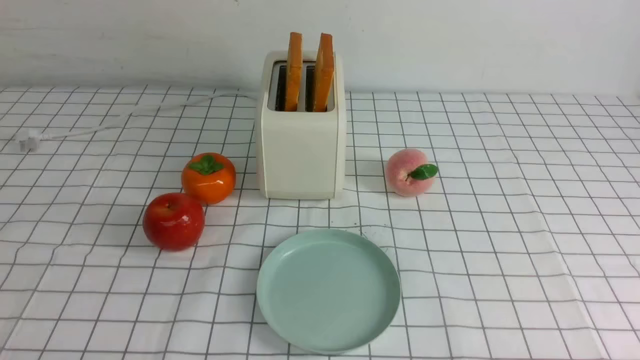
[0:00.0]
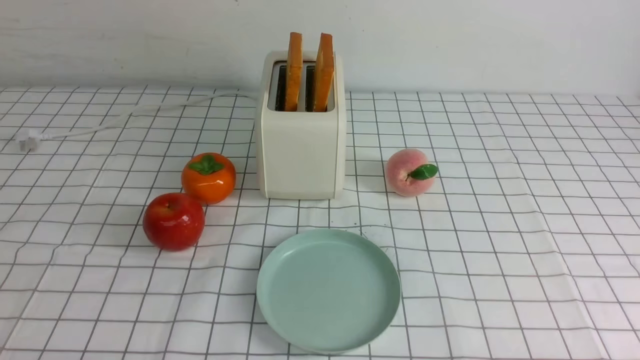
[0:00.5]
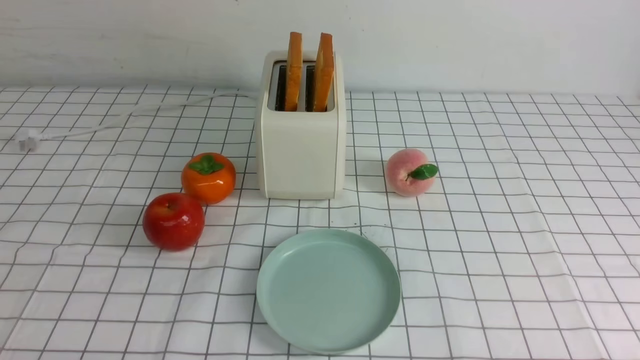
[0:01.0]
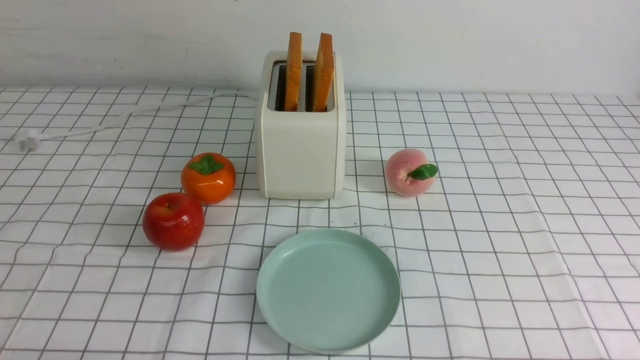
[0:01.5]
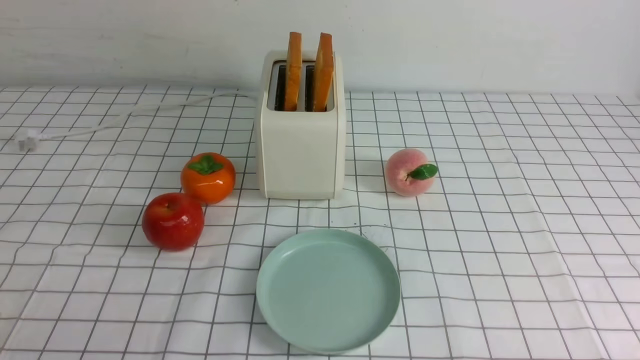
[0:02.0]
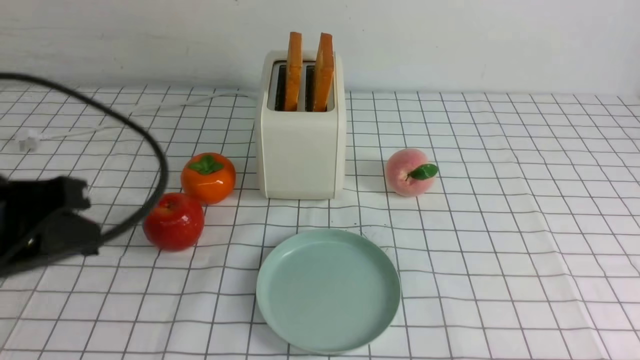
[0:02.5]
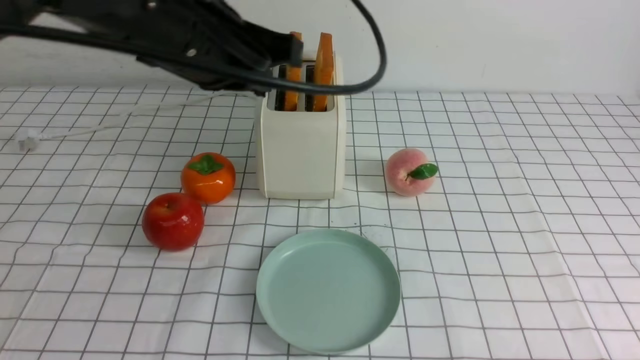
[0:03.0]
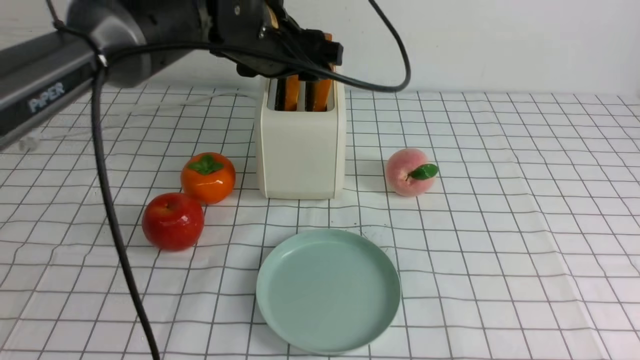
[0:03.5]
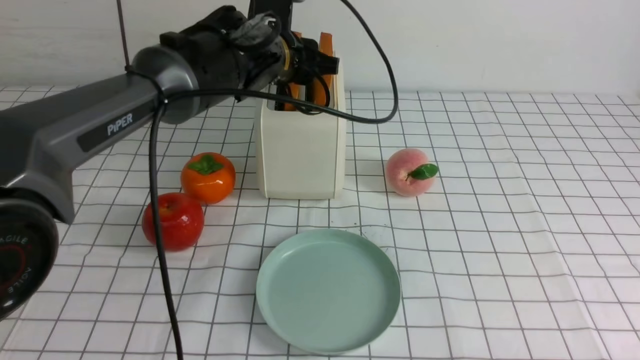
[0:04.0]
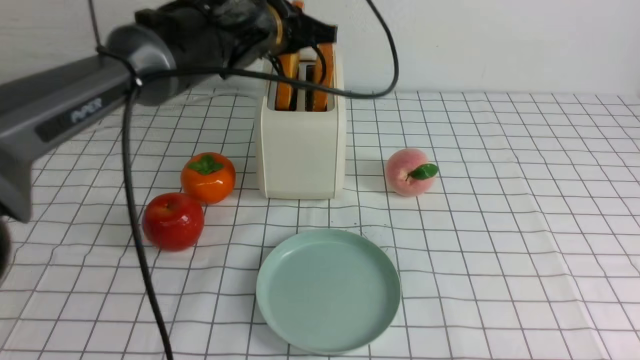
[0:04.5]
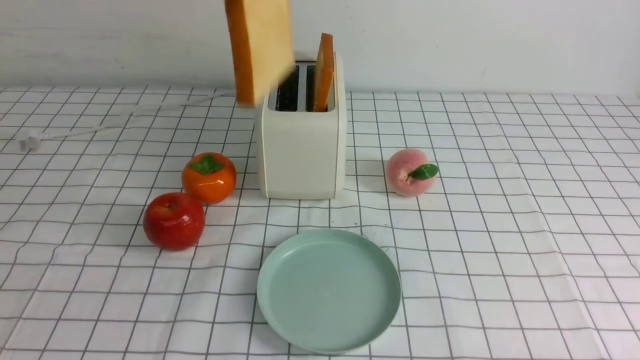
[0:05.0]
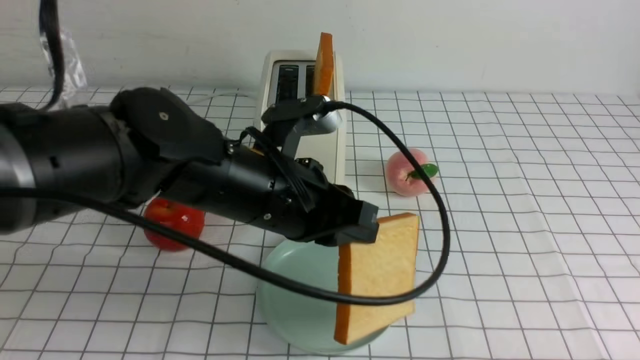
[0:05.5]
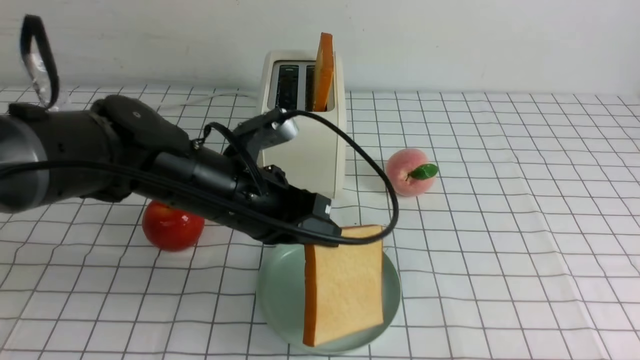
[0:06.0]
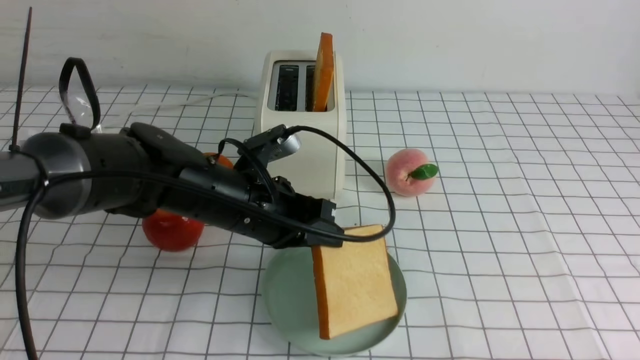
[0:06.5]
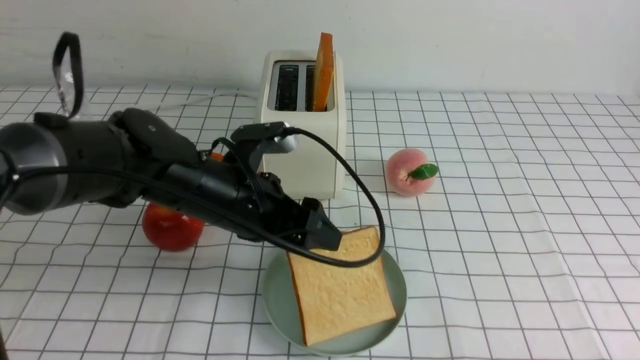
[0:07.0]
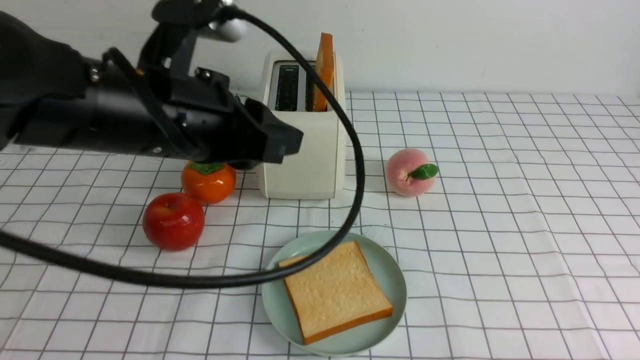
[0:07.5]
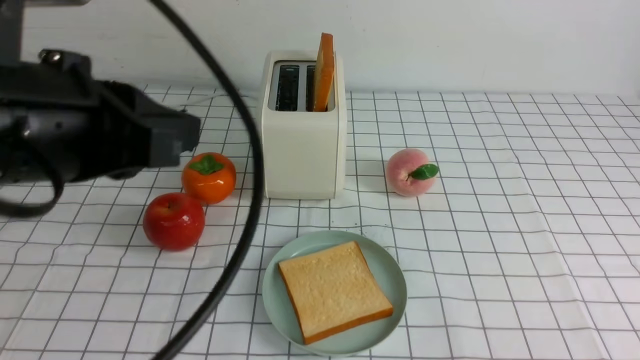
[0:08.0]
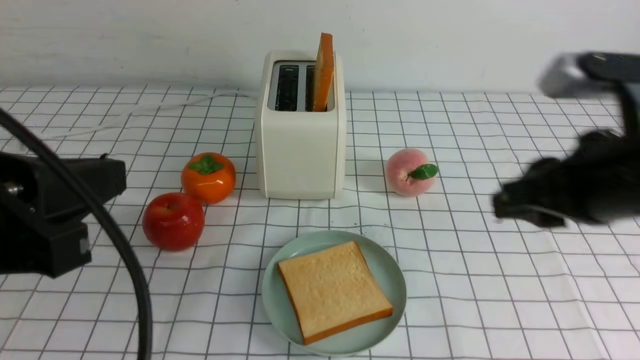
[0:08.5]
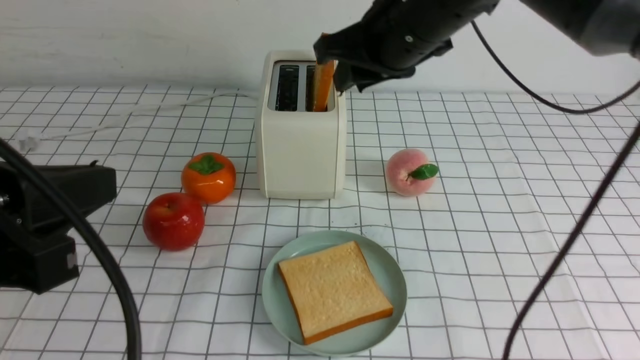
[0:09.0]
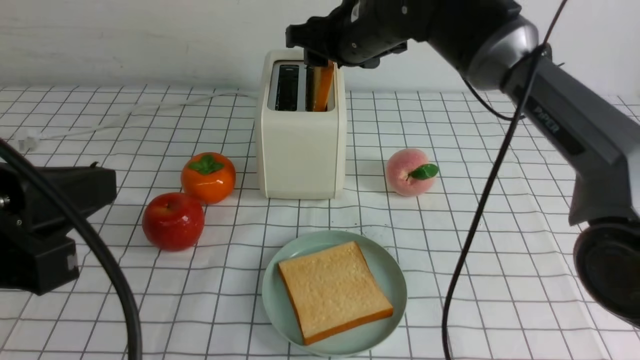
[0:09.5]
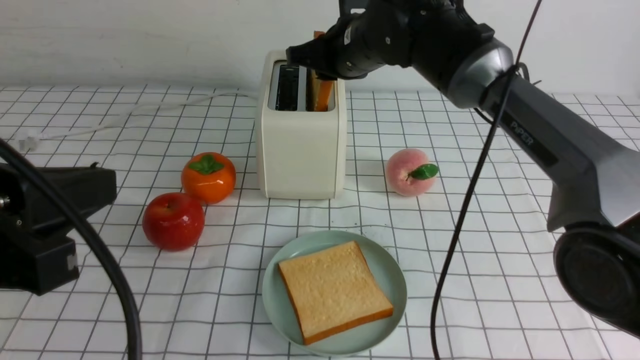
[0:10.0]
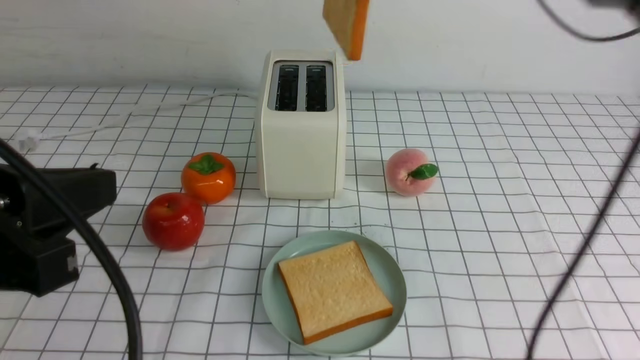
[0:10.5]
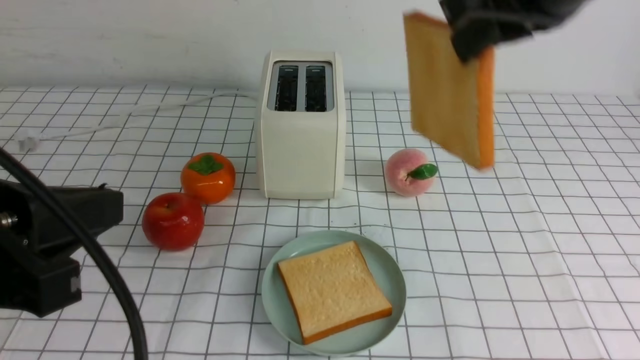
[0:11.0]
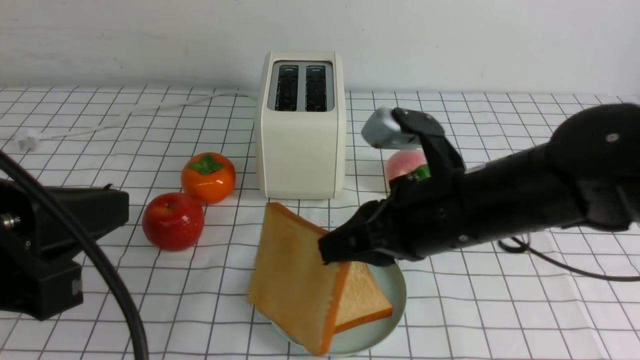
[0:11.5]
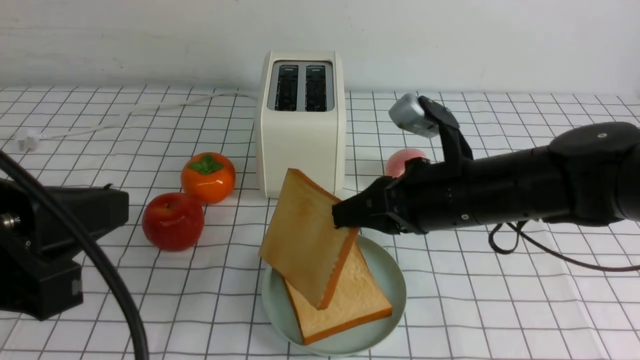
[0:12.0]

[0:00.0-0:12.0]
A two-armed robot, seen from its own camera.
Task of the whole recording: take toasted bread from bread machine on white checkered table place on plate.
Step, 0:00.0 to 0:04.5: use the left arm to take out a slice of bread.
Step, 0:05.0 to 0:07.0: use the left arm to put a slice of bread into the empty plate.
Step, 0:07.5 to 0:10.0: use the right arm to take out a slice of bread.
0:02.0 to 0:04.0: The left gripper travels forward and to the right by roughly 40 cm, and opens up.
0:04.0 to 0:06.0: The left gripper travels backward by roughly 15 cm, travels upward and back again, some 15 cm each way, and closes its fingers.
0:06.0 to 0:08.0: The right gripper moves upward, roughly 10 cm; the left gripper is displaced upward, backward and to the left by roughly 20 cm, and opens, then closes once more.
0:08.0 to 0:10.0: The right gripper heads forward and to the left, covering some 50 cm; the left gripper is displaced backward by roughly 5 cm.
0:10.0 to 0:12.0: The right gripper is displaced backward, downward and to the right by about 20 cm.

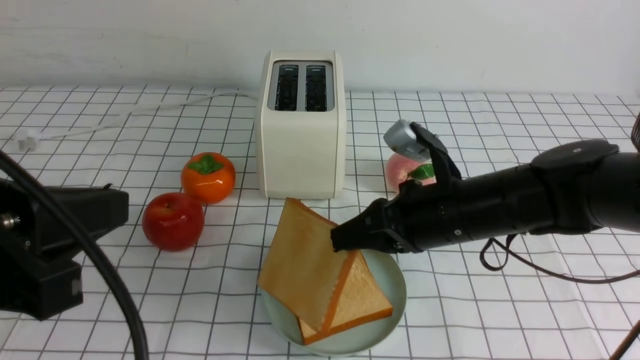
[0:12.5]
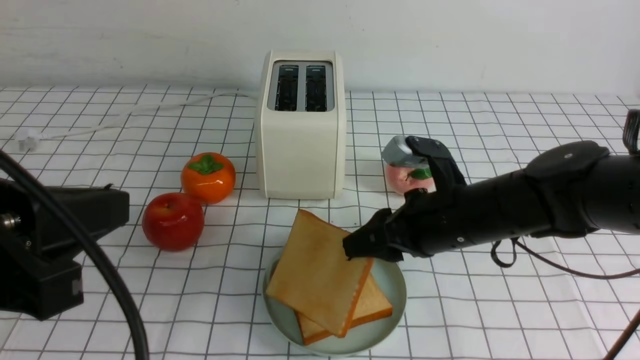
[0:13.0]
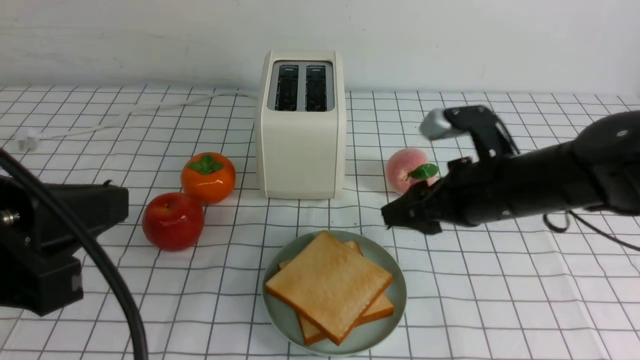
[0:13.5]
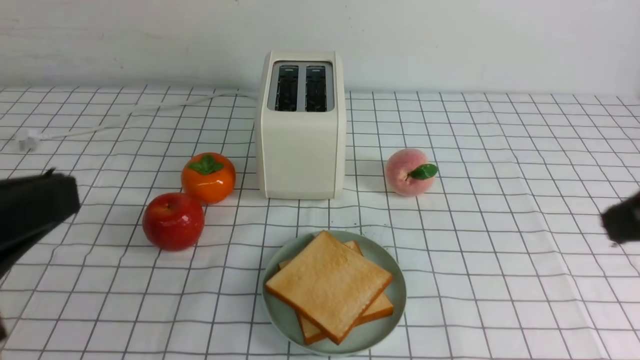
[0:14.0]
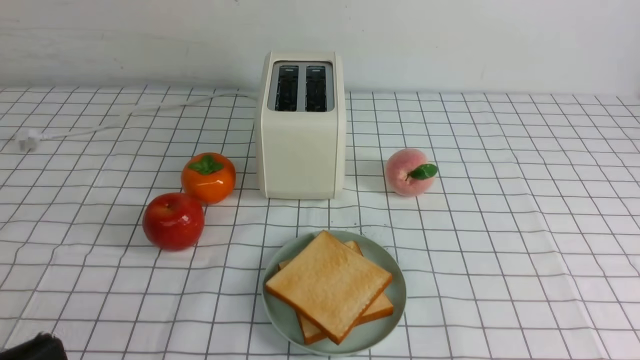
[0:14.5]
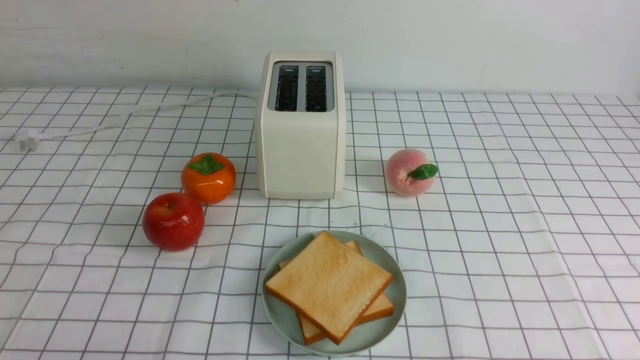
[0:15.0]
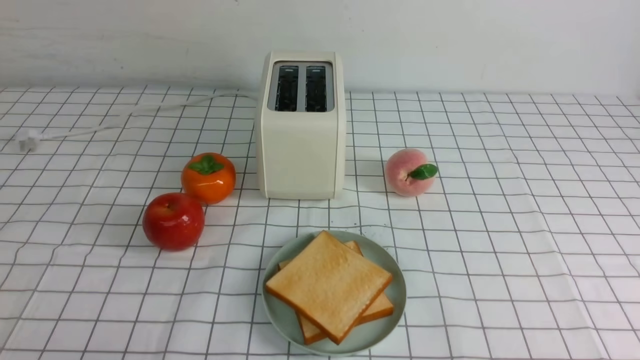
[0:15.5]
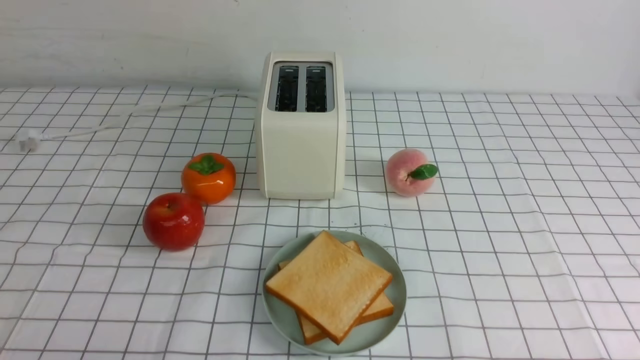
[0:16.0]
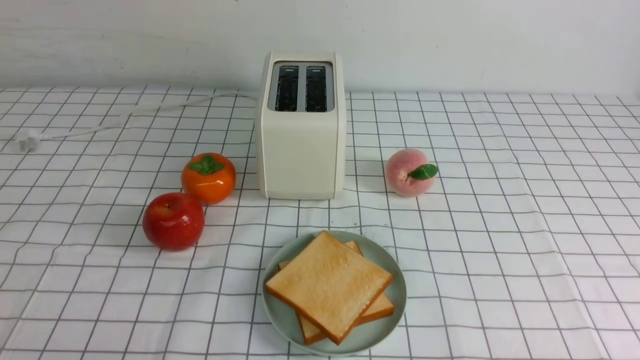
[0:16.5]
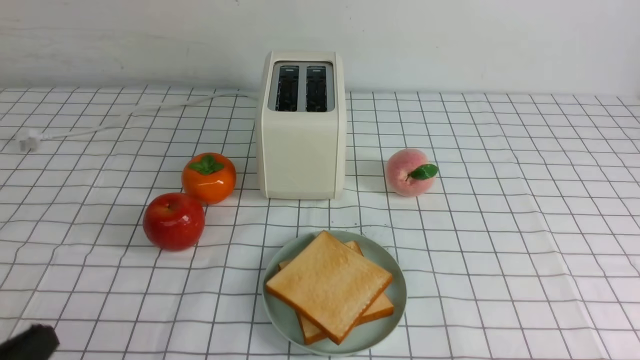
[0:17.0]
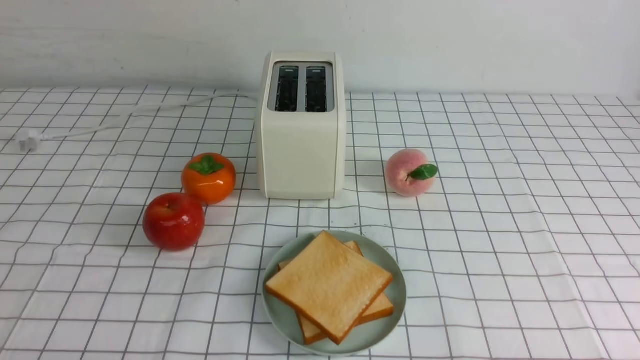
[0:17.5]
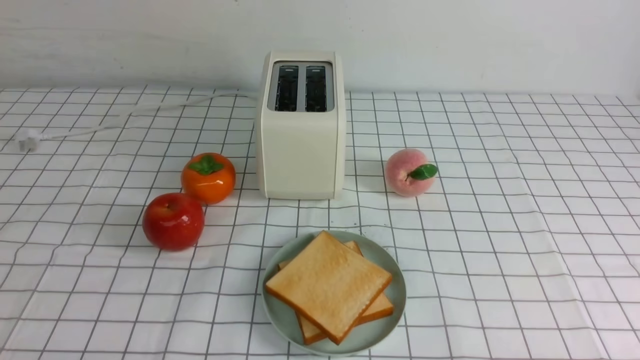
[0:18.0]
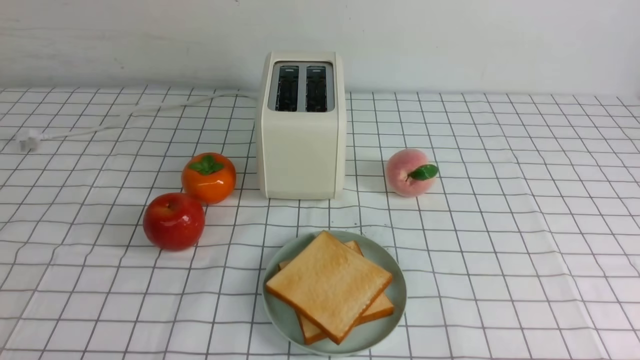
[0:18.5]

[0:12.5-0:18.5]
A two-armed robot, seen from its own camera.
Task of the whole recording: take toasted bread from bread machine on white checkered table place on plate.
0:12.5 to 0:14.5: The left gripper moves downward and backward, some 10 cm. Meanwhile the right gripper travels backward, to the right and upward by roughly 35 cm, and opens and closes again.
